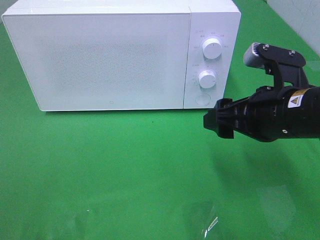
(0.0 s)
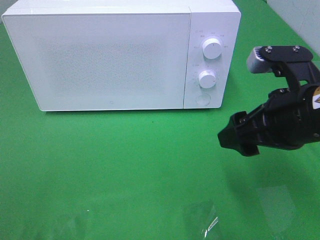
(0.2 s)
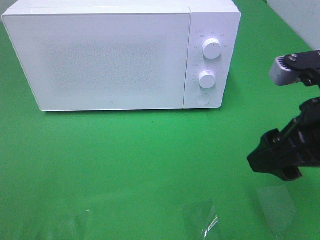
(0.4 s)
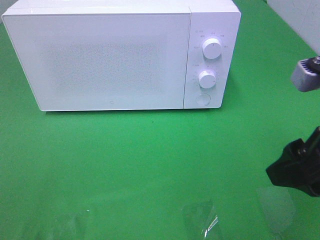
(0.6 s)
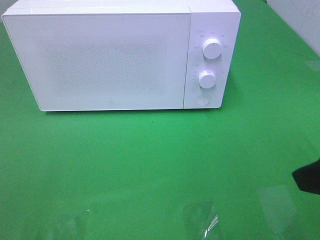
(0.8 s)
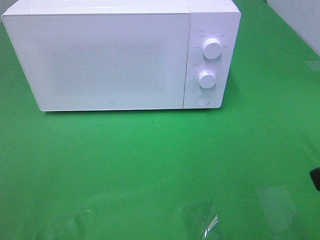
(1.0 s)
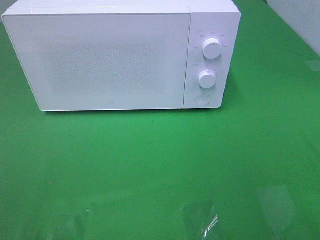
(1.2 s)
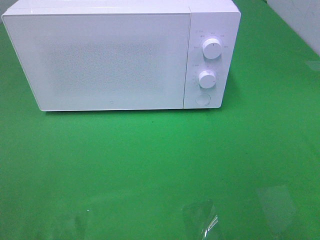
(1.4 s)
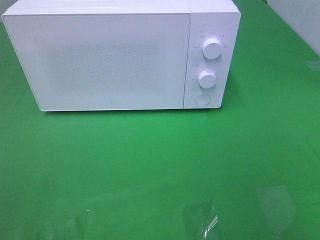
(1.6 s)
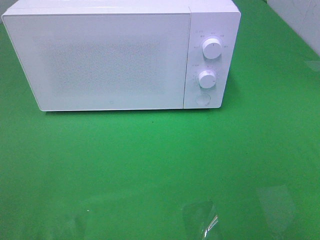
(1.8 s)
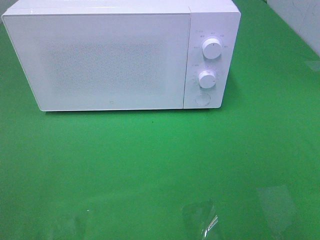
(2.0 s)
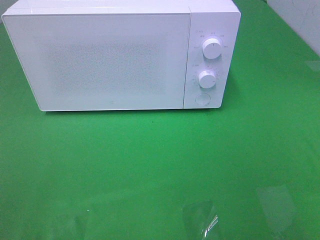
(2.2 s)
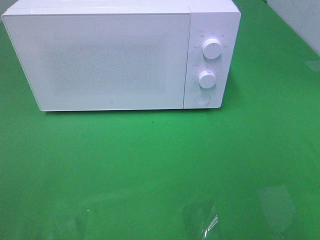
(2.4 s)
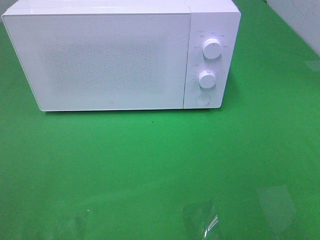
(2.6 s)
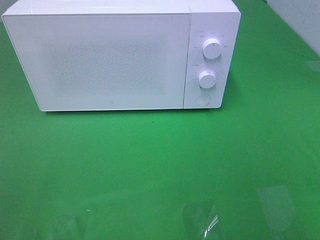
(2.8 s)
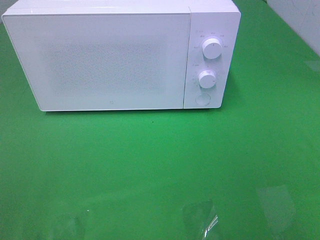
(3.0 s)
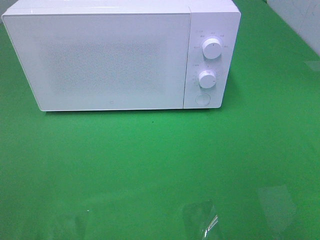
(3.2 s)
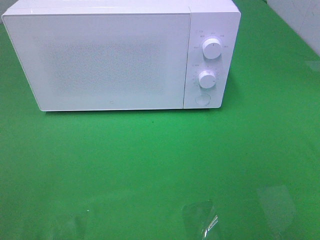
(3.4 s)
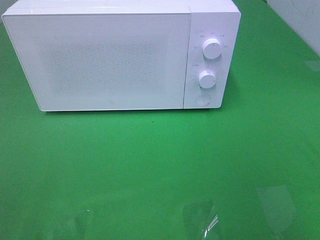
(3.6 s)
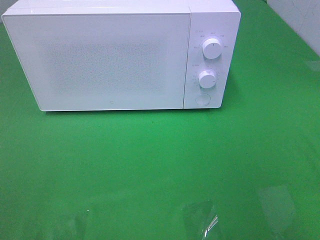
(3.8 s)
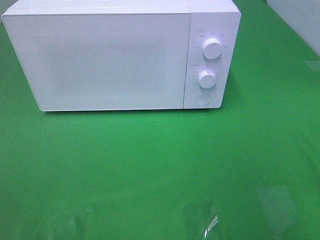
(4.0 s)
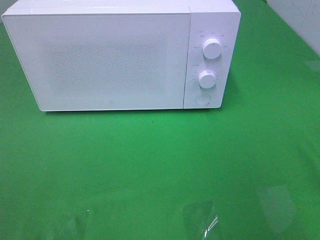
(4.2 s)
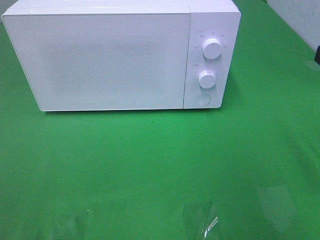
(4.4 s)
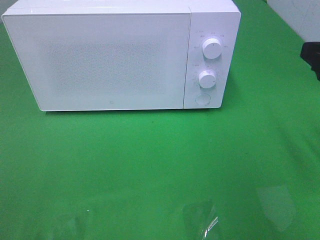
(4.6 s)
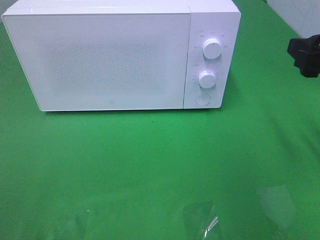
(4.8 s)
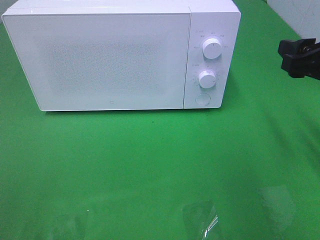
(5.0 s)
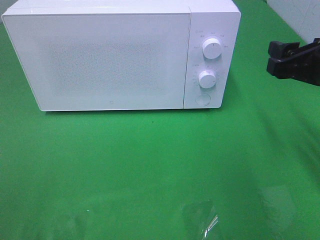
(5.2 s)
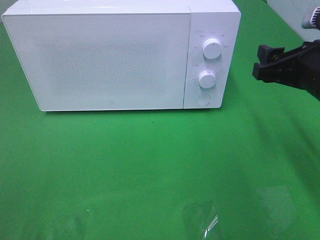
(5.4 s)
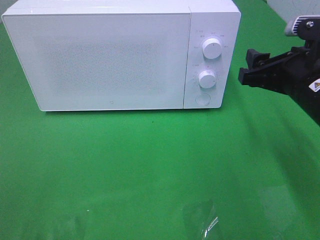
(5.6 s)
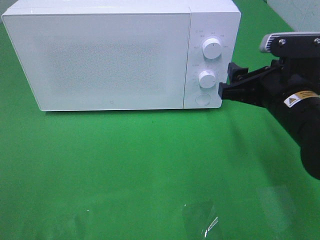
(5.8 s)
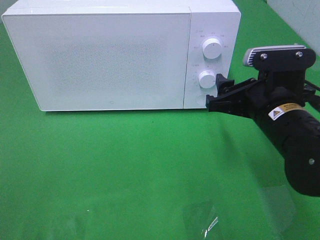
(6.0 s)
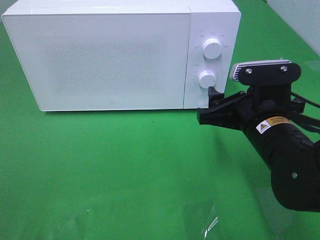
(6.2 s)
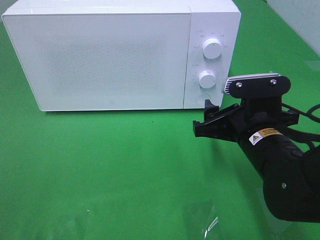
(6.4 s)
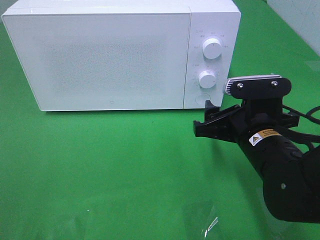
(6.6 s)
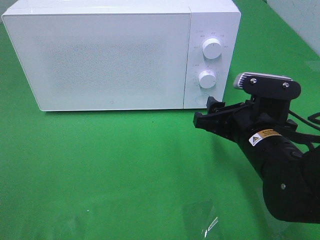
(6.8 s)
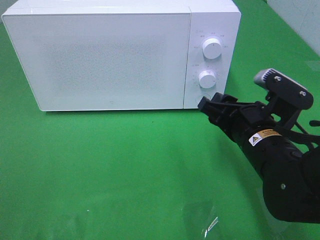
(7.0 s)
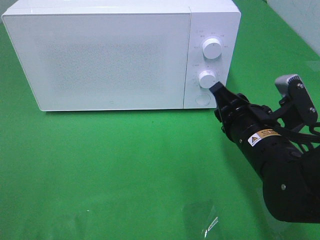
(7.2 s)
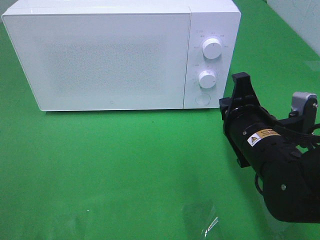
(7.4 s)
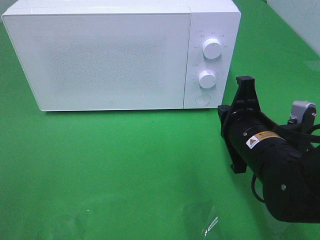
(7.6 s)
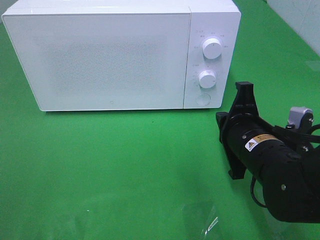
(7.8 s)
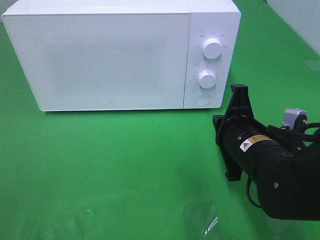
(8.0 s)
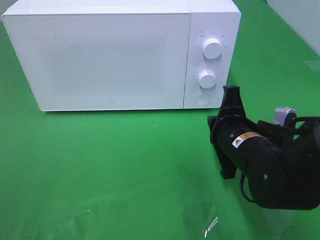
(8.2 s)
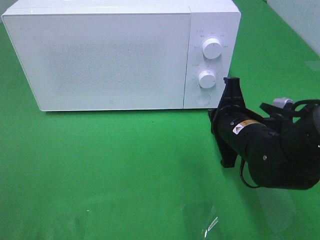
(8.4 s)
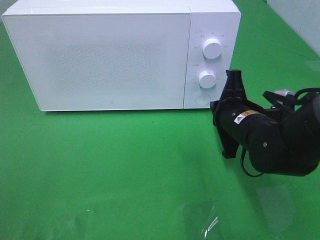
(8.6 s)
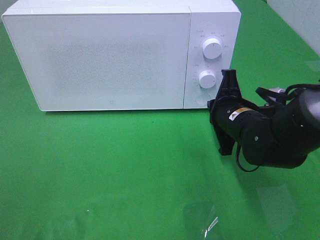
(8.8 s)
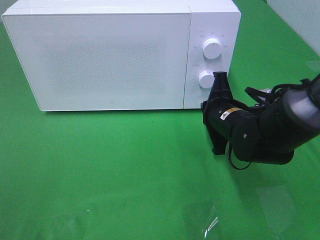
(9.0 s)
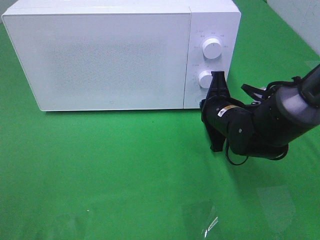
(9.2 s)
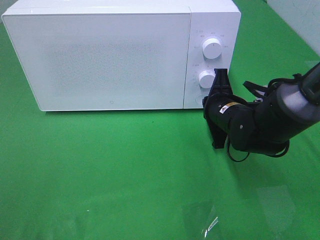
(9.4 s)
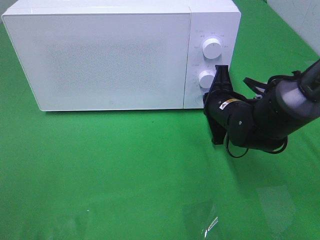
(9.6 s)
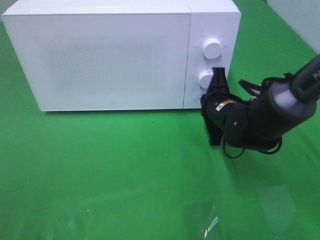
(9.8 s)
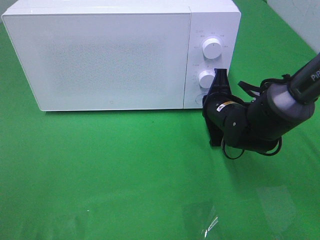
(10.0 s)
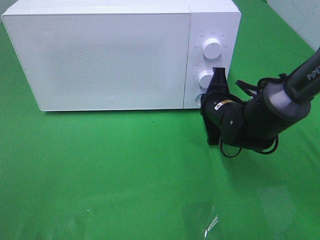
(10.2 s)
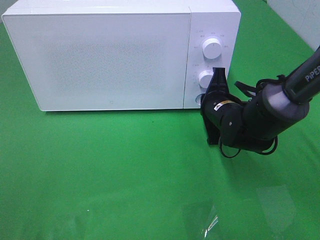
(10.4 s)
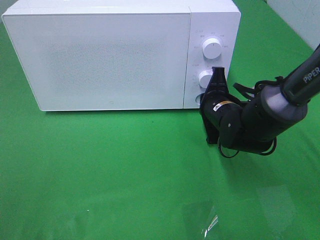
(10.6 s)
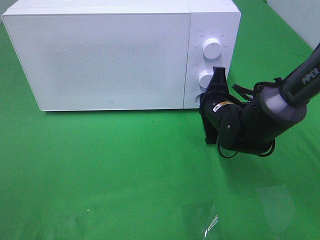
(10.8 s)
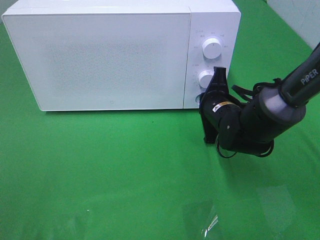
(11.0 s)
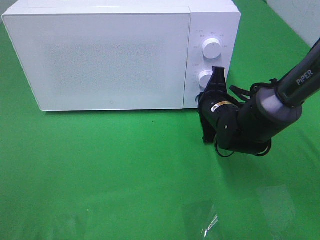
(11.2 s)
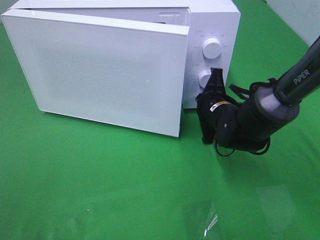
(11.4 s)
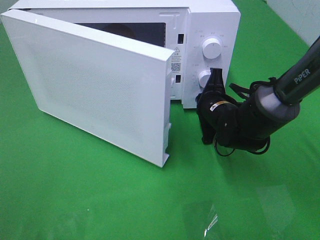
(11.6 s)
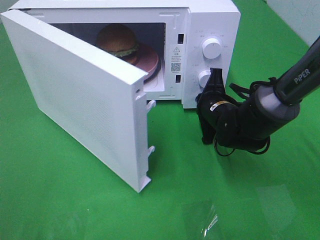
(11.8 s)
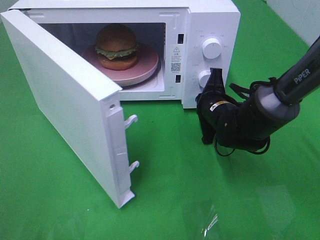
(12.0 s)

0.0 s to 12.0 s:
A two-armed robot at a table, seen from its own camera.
Task of the whole recording: Heat the burger.
0.0 to 1.6 s: The right gripper shifts roughly 25 cm backward, to the right and upward.
4.4 to 6.0 s: The right gripper heads downward, to the left and forward, covering approximately 15 cm.
6.0 to 7.6 s: The right gripper closes its fingers.
7.6 to 9.0 s: The right gripper heads forward, covering approximately 10 cm.
9.0 to 10.4 s: The grippers move only a little.

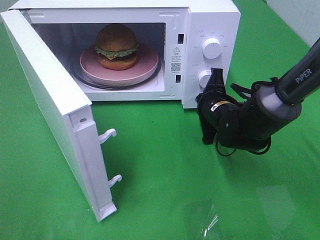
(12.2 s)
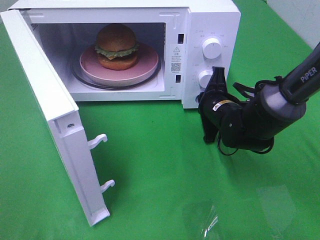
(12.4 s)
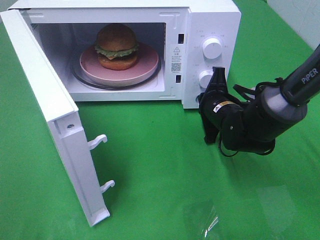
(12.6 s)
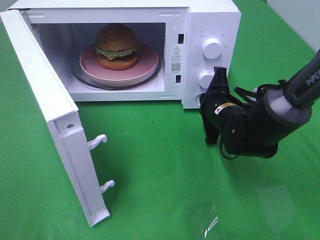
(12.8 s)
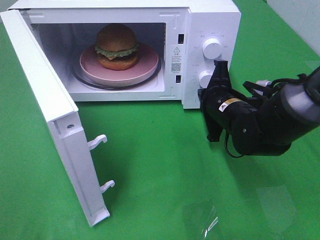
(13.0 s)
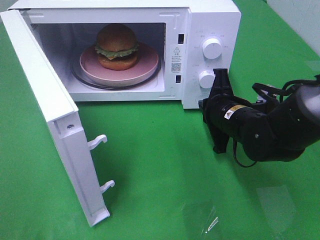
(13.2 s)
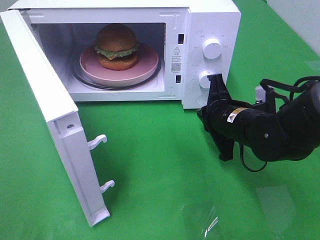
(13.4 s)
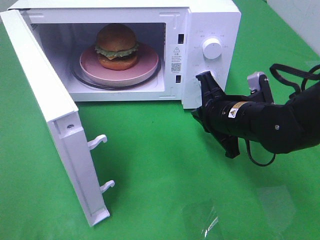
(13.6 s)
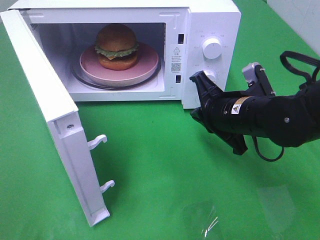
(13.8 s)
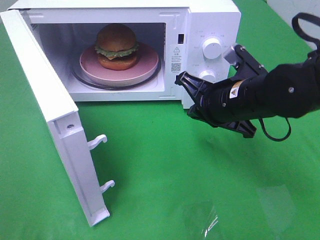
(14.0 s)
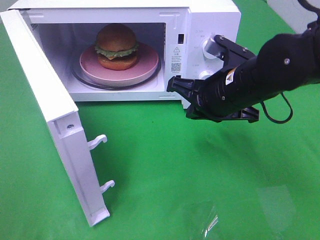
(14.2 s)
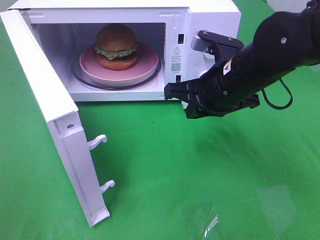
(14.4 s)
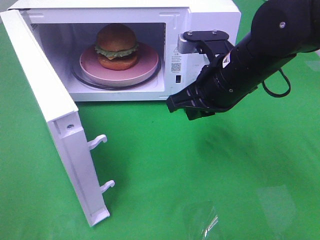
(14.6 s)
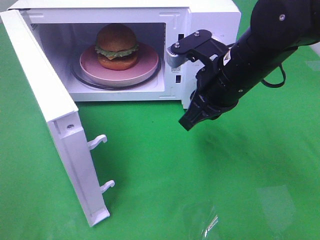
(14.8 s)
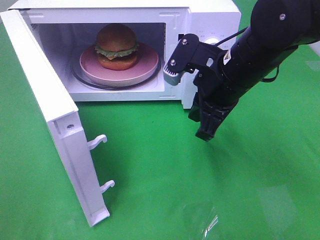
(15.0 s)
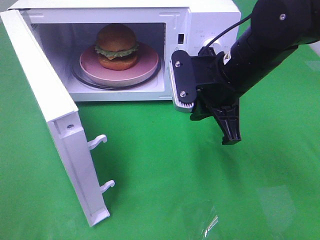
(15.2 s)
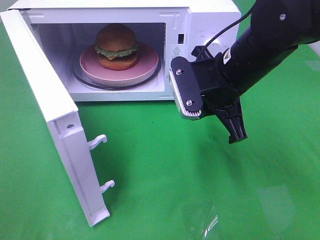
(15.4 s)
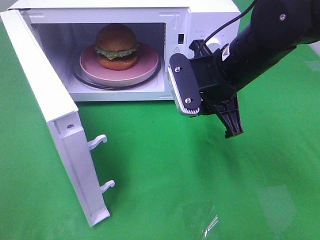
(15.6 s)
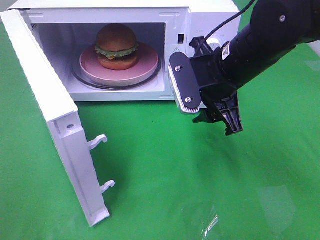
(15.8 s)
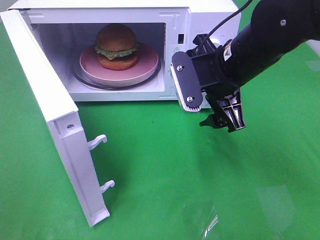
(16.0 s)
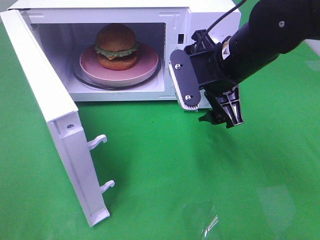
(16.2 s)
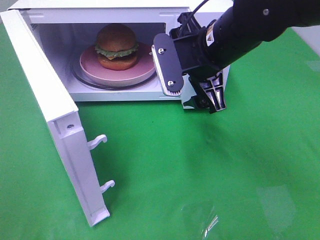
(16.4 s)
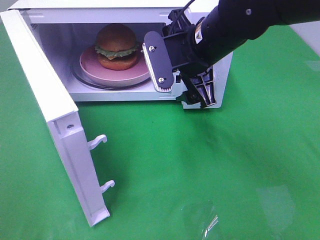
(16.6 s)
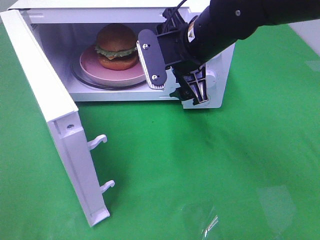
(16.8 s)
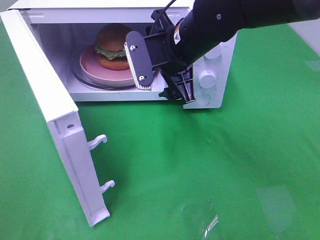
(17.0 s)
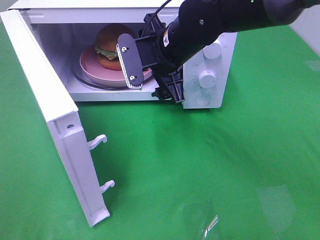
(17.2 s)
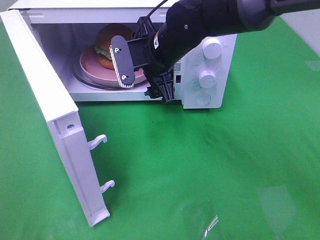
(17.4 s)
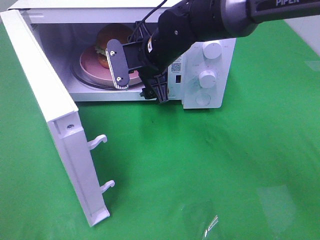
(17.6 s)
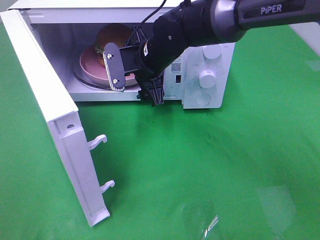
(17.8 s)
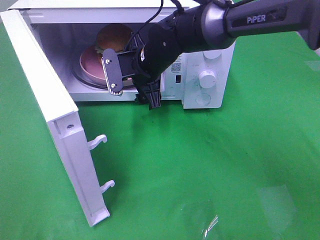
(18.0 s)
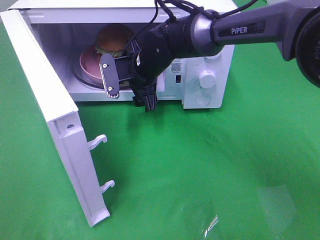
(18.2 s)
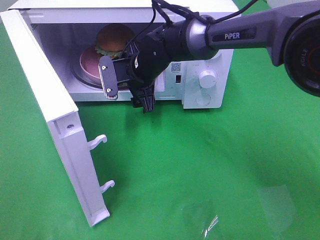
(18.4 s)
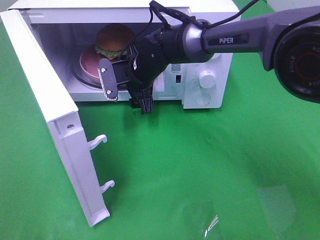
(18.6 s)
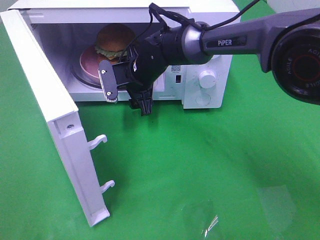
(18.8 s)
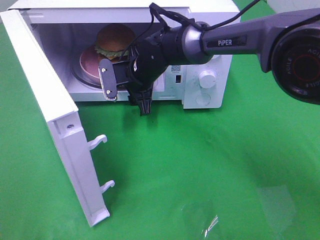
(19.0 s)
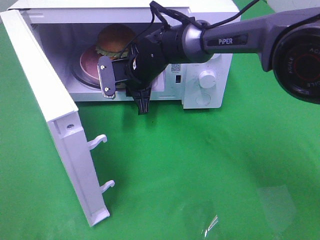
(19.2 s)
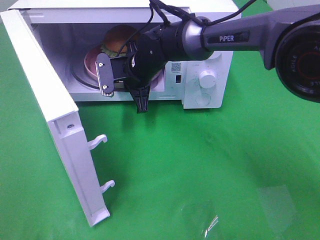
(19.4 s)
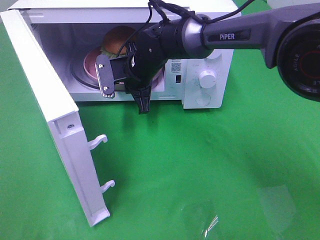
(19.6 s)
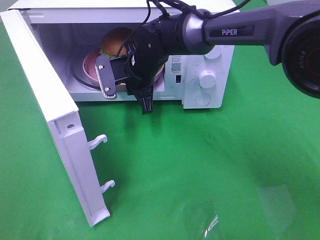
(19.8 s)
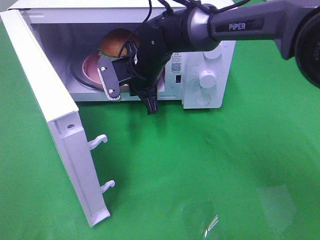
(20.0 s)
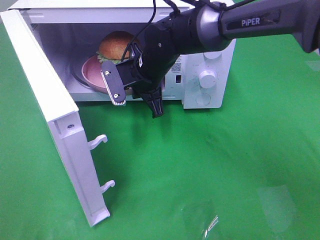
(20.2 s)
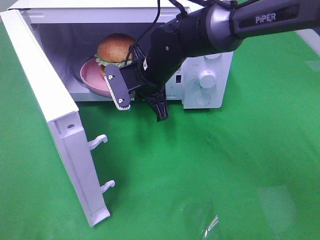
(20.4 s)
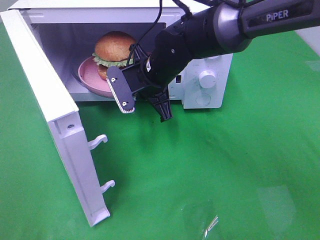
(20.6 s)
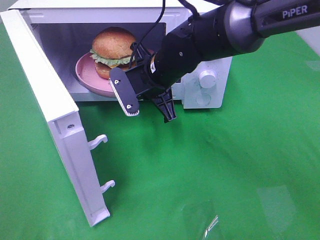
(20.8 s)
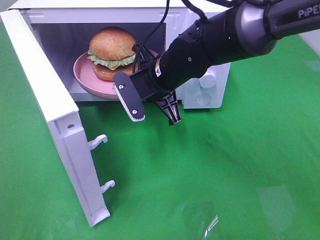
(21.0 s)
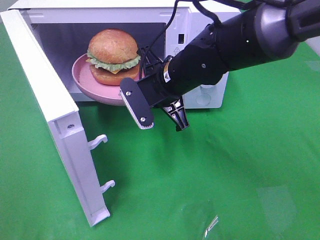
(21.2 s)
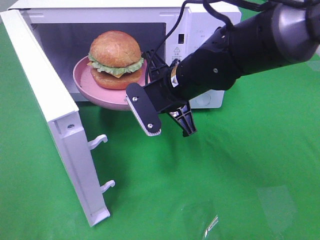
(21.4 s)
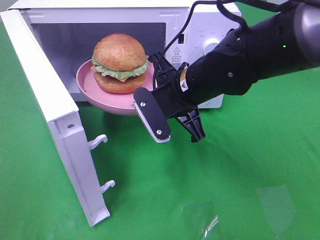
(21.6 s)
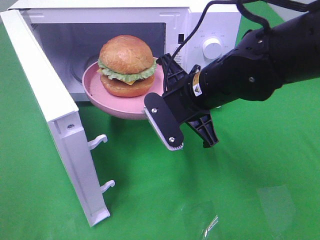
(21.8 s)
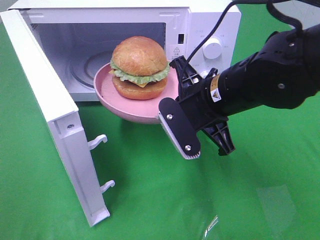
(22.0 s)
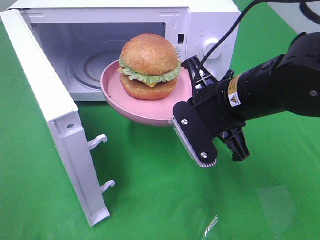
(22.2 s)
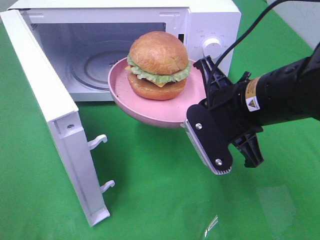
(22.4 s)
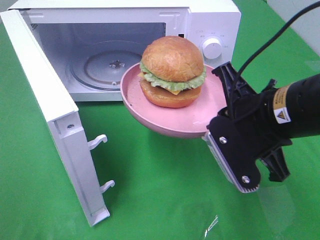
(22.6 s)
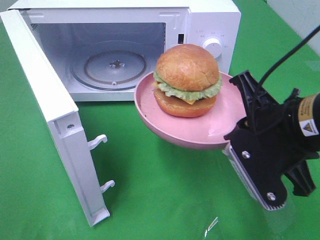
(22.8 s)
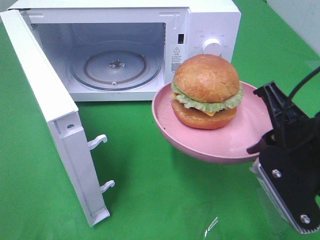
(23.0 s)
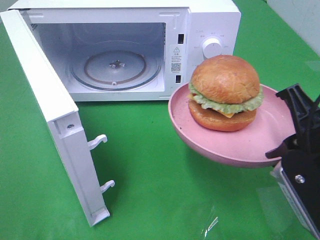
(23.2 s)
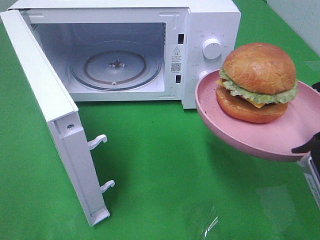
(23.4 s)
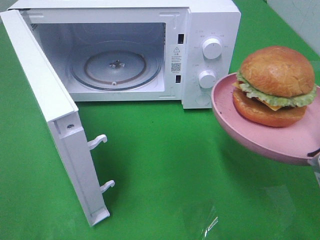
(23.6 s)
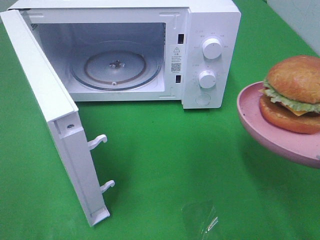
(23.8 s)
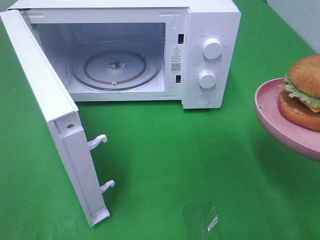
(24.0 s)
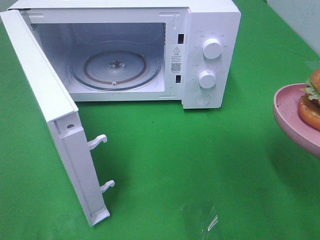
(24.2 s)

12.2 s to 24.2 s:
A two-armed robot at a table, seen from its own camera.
Task of the whole recording: Heat the burger.
Step, 13.4 to 19.8 s: Right hand: grab the plate with the hamburger.
12.2 to 13.8 s: The right gripper is displaced backward and upward by some 10 cm.
13.8 to 15.2 s: The right gripper travels upward by roughly 5 cm.
15.2 to 16.6 s: The right gripper shifts by approximately 5 cm, and opens.
16.6 to 18.2 s: The right gripper moves forward, downward and to the left, approximately 15 cm.
18.2 to 19.8 s: The right gripper closes.
19.8 to 21.2 s: The right gripper is displaced backward and to the right by roughly 10 cm.
21.2 to 22.6 s: The right gripper travels backward and to the right by some 15 cm.
22.6 to 24.2 s: The right gripper shifts roughly 15 cm to the right and backward.
